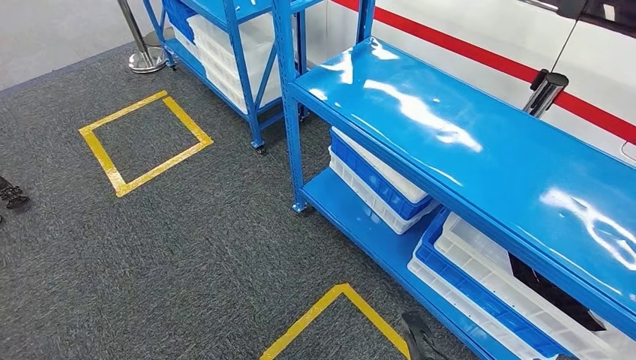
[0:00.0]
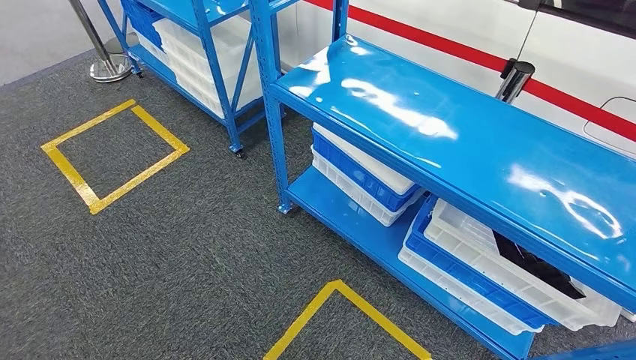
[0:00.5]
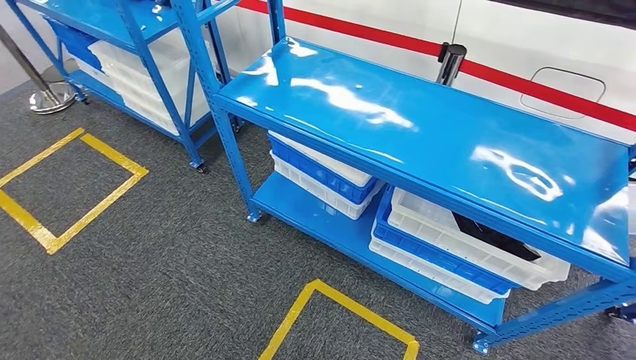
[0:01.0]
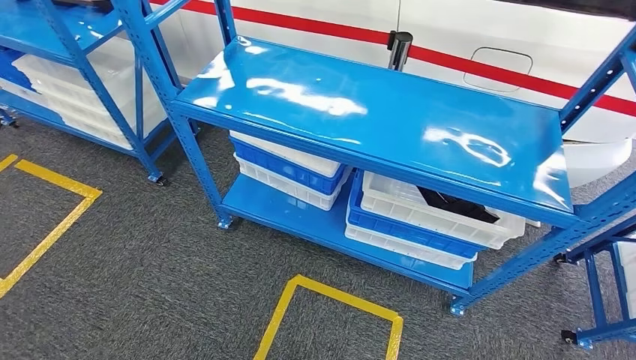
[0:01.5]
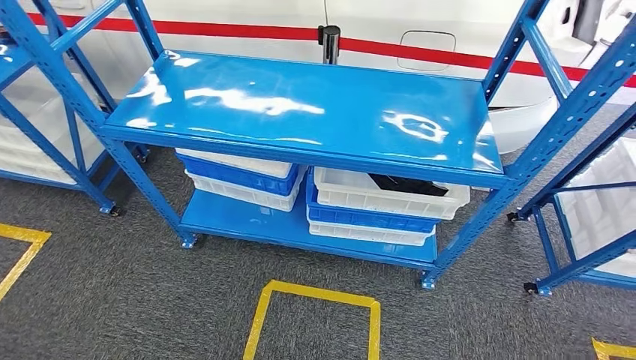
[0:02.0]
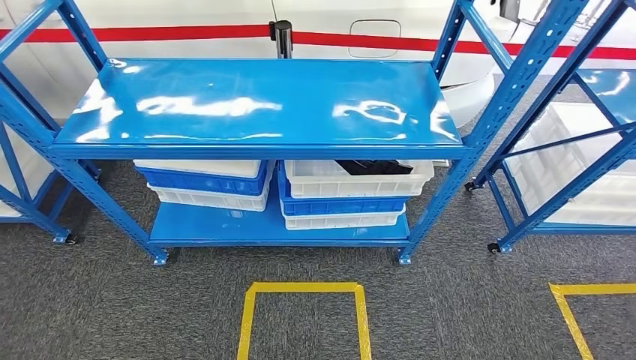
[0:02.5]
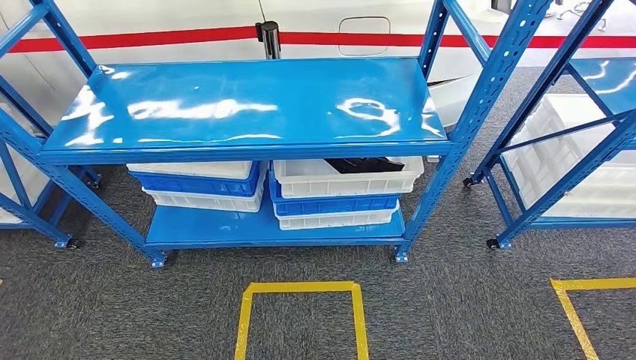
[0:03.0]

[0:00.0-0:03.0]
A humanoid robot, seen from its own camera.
Step, 0:00.0 to 0:03.0: Return to the initial position at the shelf.
